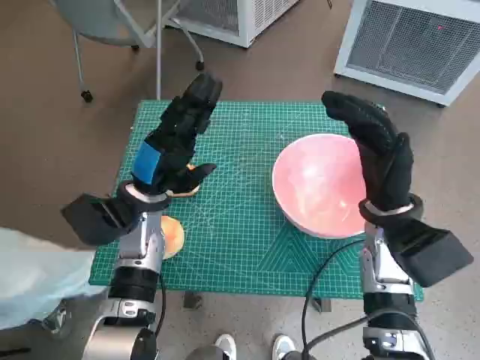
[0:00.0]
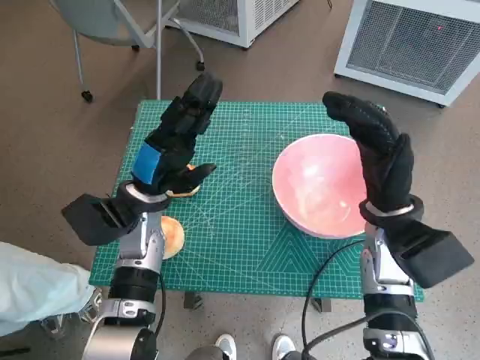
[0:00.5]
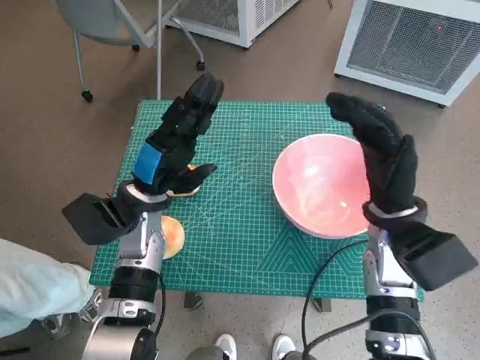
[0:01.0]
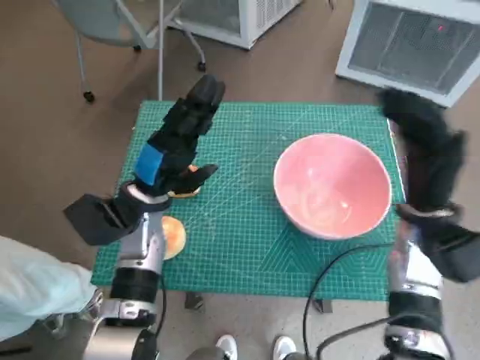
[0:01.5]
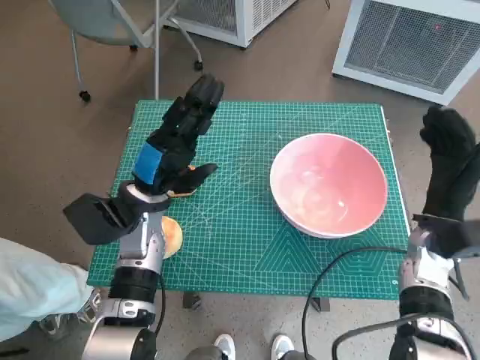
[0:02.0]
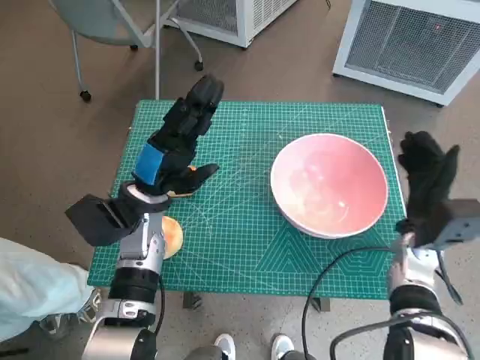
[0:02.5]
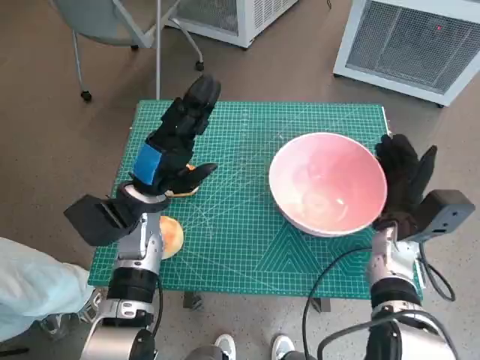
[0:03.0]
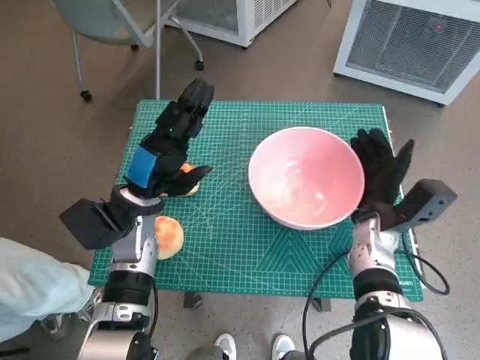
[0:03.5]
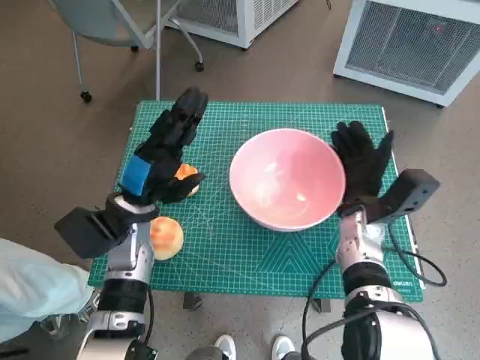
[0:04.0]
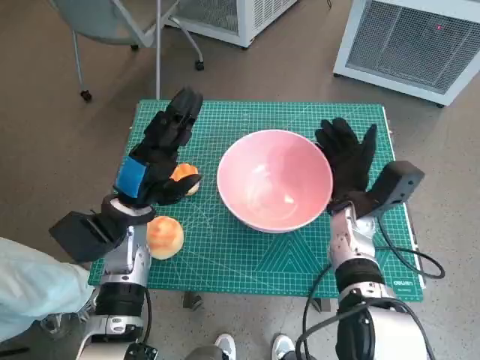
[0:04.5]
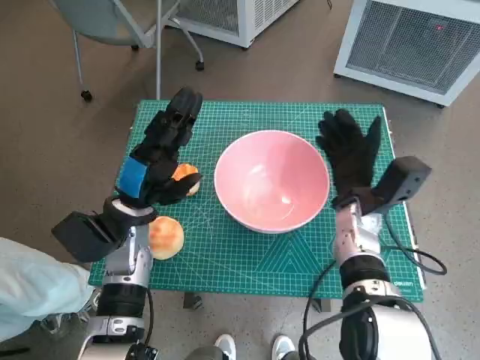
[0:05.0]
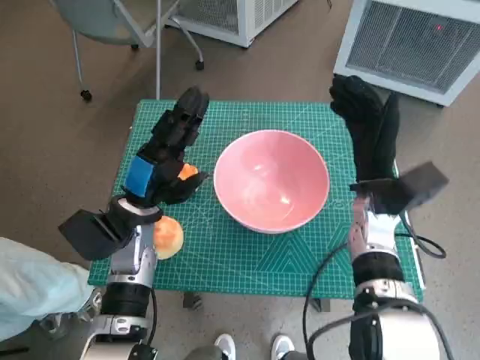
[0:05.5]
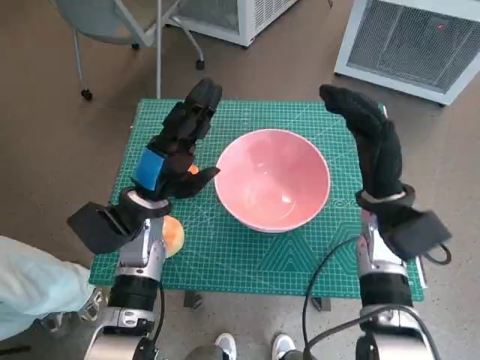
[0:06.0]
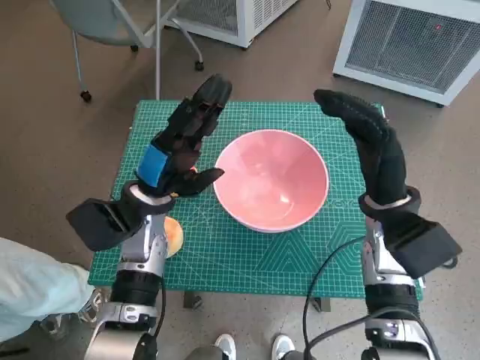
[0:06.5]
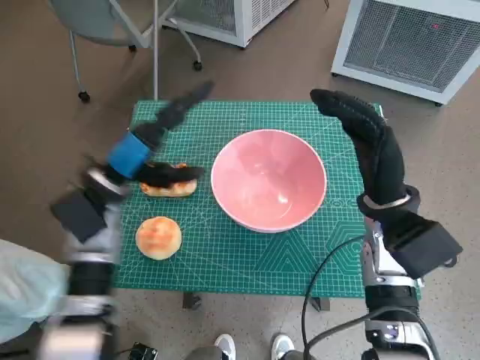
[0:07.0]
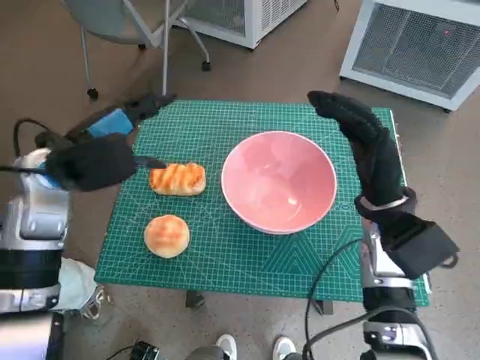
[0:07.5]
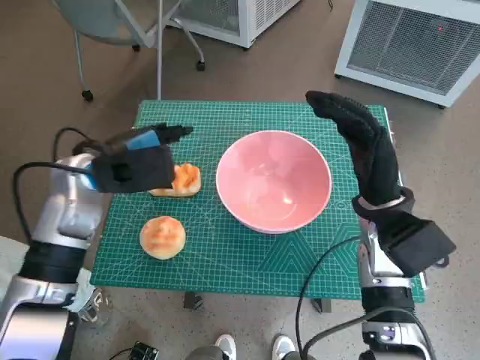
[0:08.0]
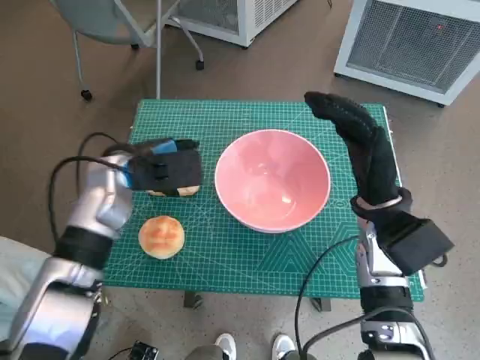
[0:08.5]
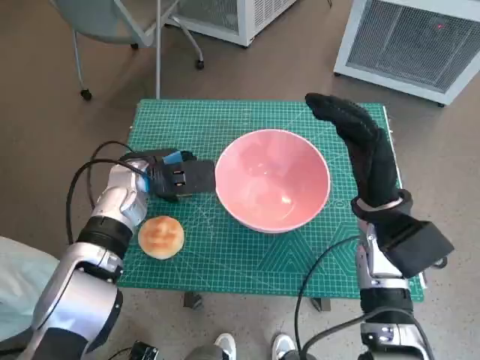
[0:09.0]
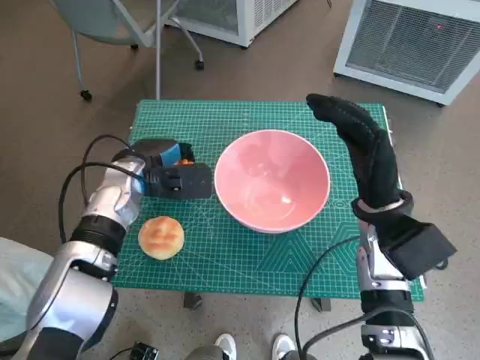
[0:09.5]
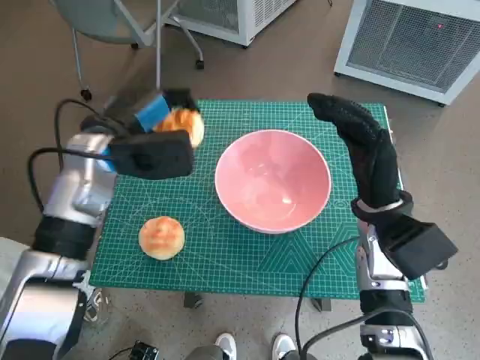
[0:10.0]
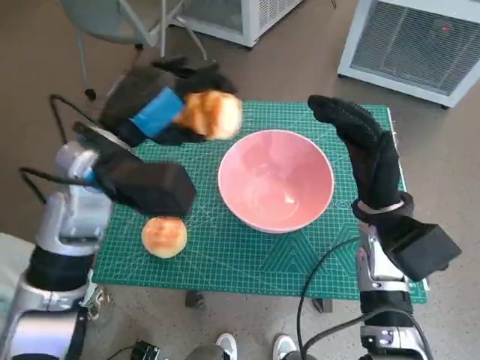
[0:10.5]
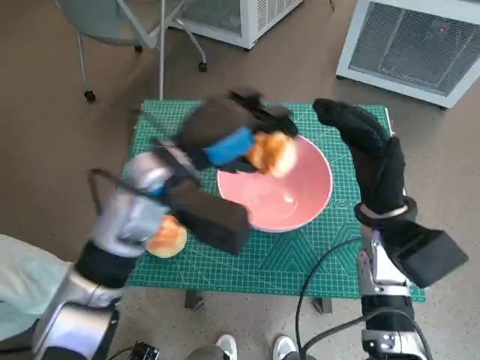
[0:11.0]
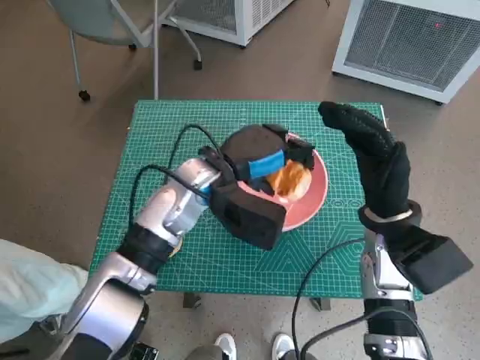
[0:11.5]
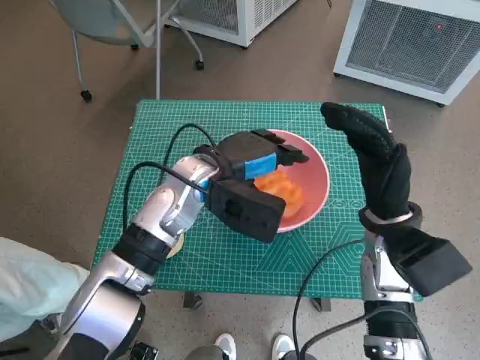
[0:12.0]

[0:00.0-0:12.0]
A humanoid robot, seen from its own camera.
Task of the whole recording: Push the bowl into the center of the table and put the bread into the bowl.
Step, 0:00.0 to 0:05.0: Move the pink bowl to the center of table with right hand.
Step, 0:05.5 to 0:09.0: Grasp the long bread with left hand.
Step, 0:09.5 to 0:11.5: Place the long bread in pink bowl with left hand.
0:02.0 to 0:04.0: The right hand shifts approximately 10 cm to the left.
0:04.0 to 0:06.0: The right hand moves upward, about 5 cm.
0:06.0 to 0:08.0: The left hand goes about 10 cm upward and to the left.
0:10.0 to 0:12.0: The left hand goes about 10 cm to the right.

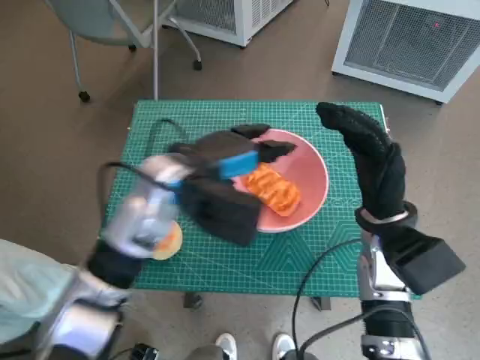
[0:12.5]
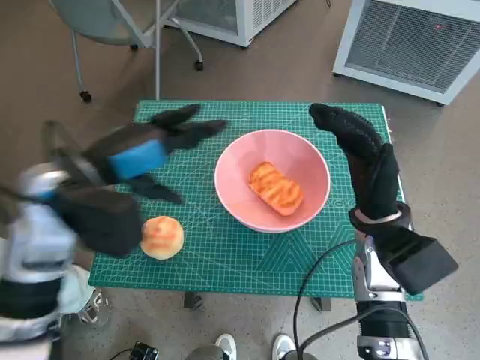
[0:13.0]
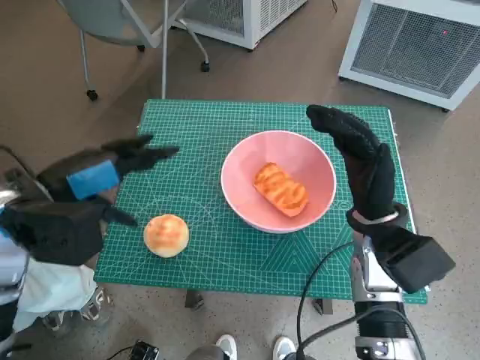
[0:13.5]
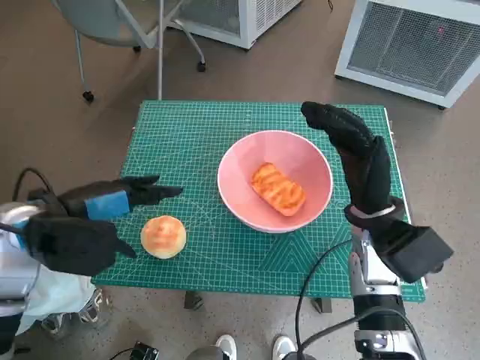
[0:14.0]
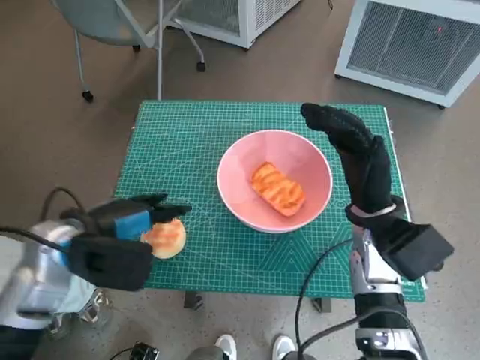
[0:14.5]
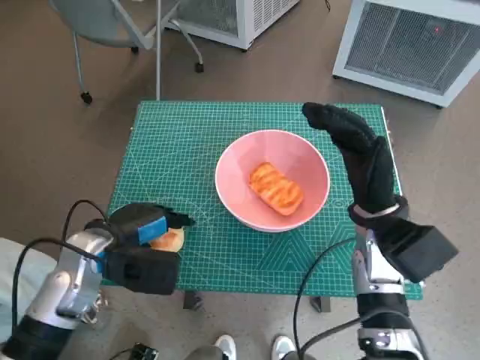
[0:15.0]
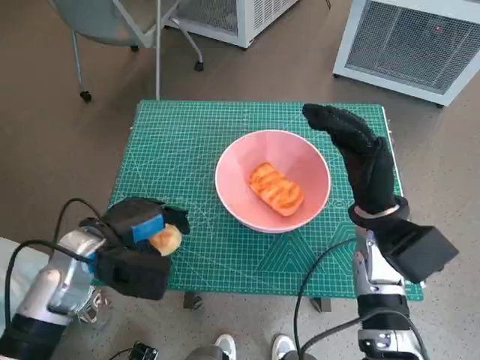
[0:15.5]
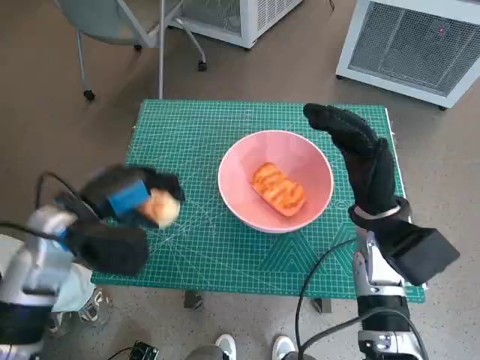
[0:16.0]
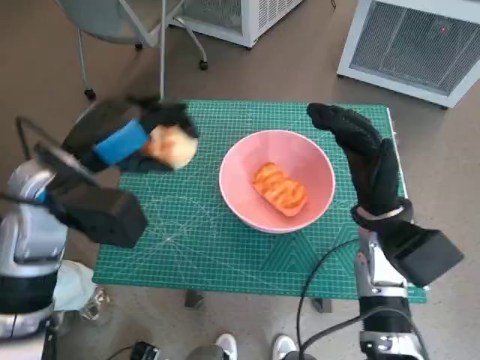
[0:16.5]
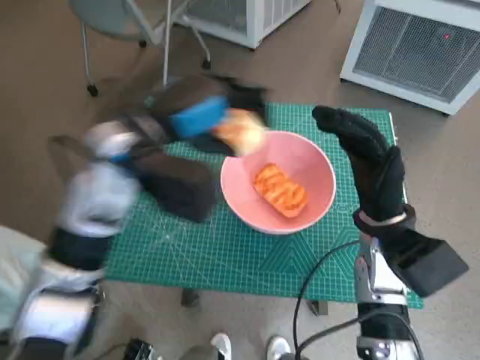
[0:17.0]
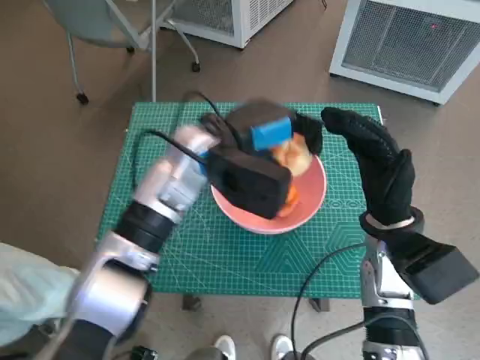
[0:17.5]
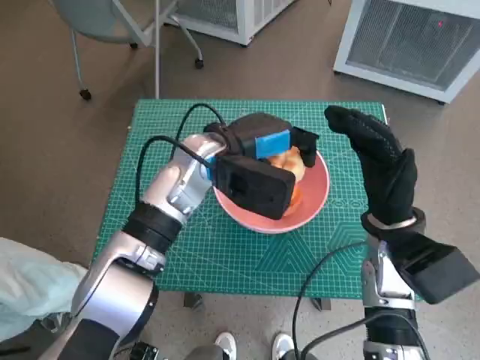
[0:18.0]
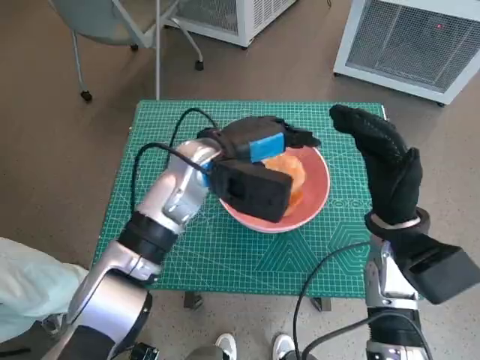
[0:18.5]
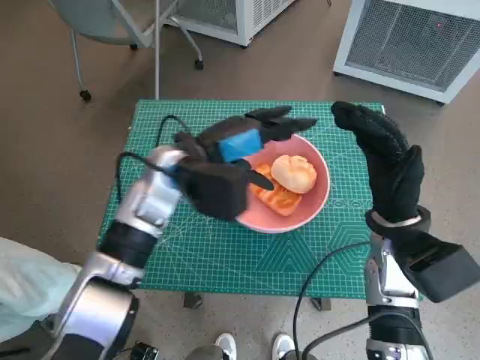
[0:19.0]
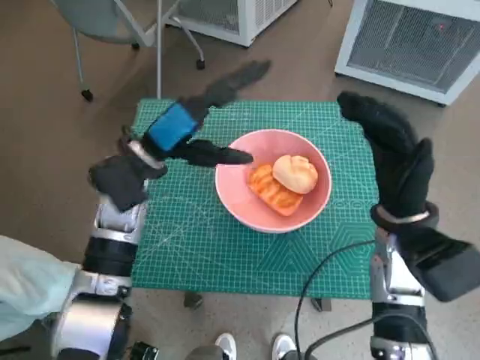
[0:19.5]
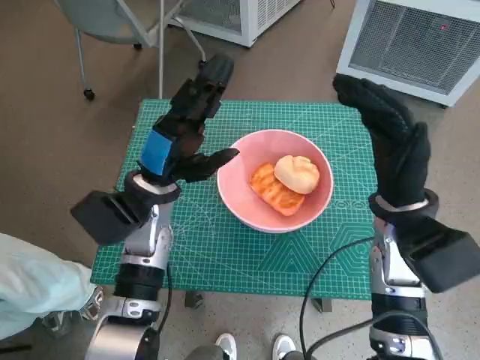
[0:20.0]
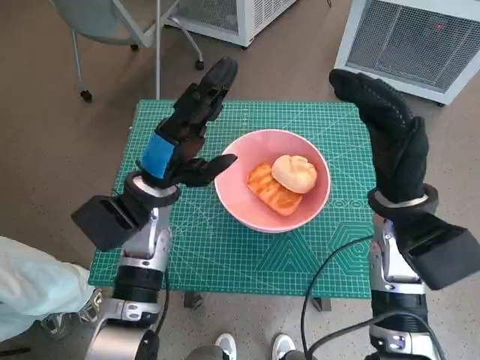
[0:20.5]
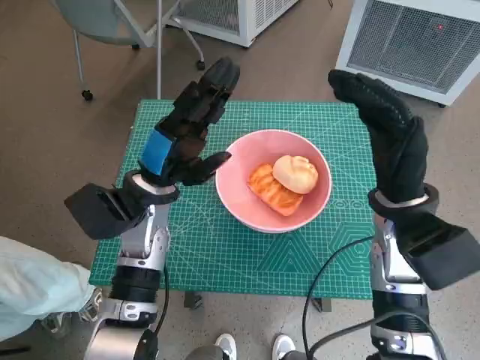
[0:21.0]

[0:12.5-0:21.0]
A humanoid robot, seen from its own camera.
Task of the whole recording: Push the bowl into the center of the table and put the bread into the bowl.
Step, 0:12.5 to 0:15.0: Grasp the round bread with left hand.
Step, 0:15.5 to 0:18.0: Place the round bread in pink bowl with left hand.
0:12.5 to 0:14.5: The left hand goes approximately 15 cm to the left and backward.
0:14.5 to 0:16.5: The left hand travels upward by roughly 5 cm.
0:16.5 to 0:19.0: The left hand shifts approximately 15 cm to the right and forward.
0:19.0 to 0:21.0: The left hand ends up some 5 cm from where it was.
